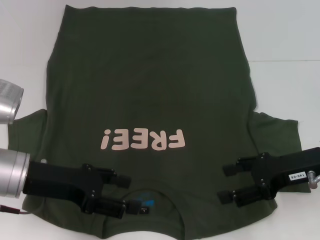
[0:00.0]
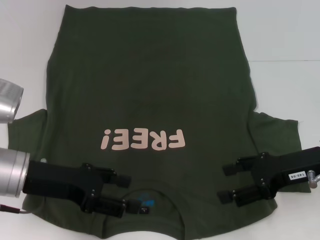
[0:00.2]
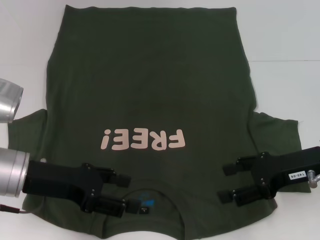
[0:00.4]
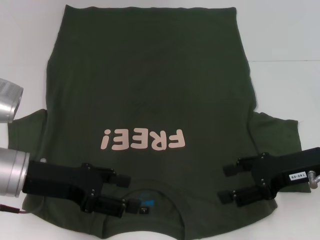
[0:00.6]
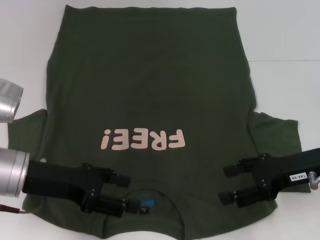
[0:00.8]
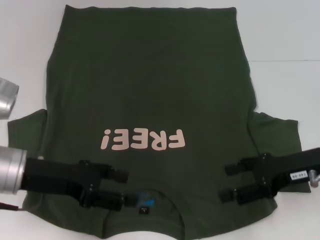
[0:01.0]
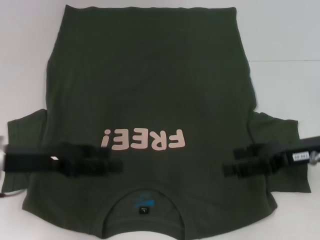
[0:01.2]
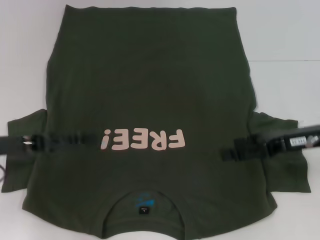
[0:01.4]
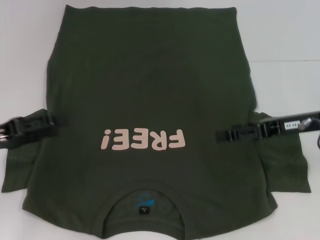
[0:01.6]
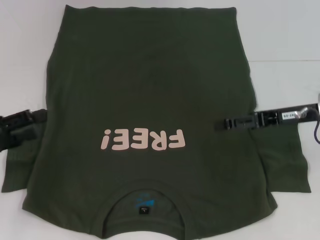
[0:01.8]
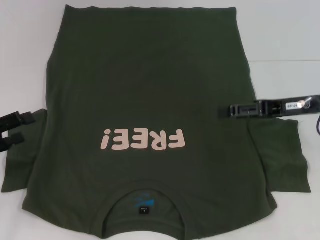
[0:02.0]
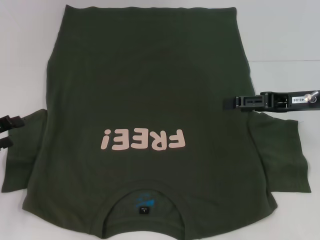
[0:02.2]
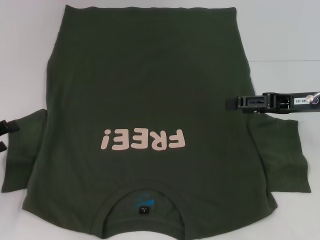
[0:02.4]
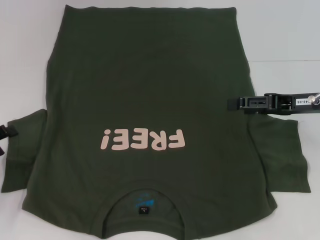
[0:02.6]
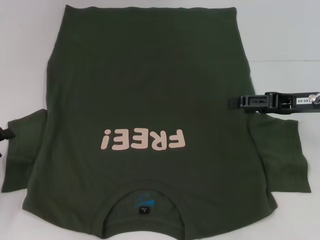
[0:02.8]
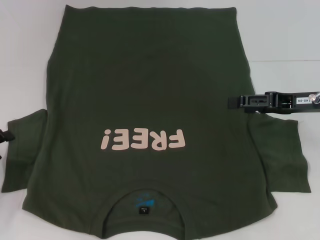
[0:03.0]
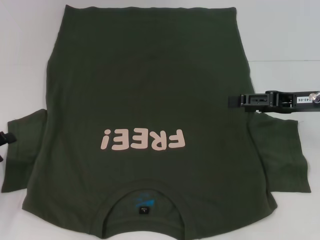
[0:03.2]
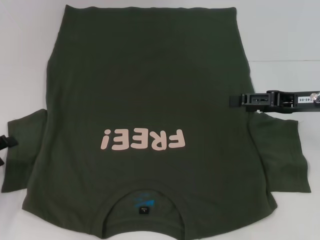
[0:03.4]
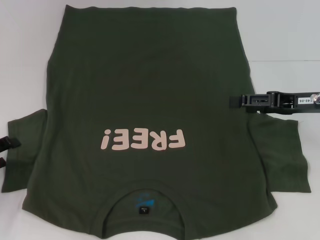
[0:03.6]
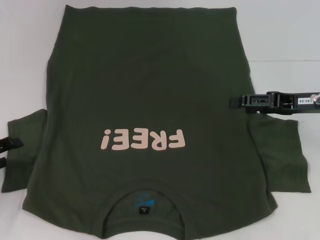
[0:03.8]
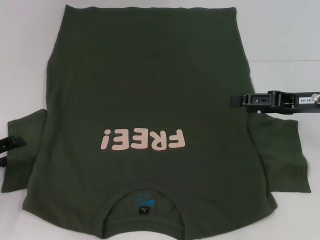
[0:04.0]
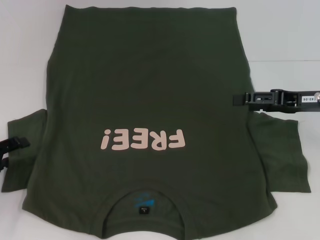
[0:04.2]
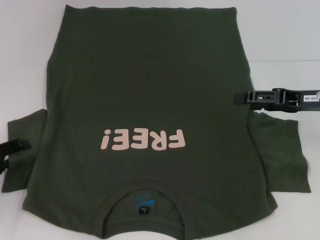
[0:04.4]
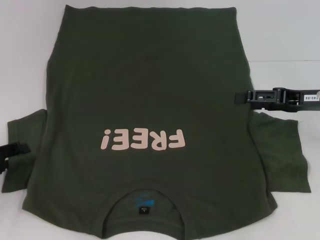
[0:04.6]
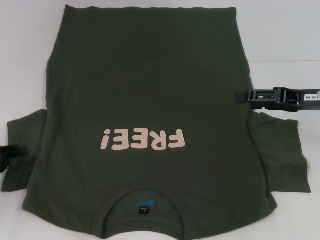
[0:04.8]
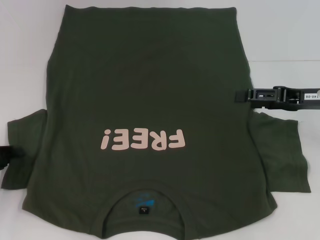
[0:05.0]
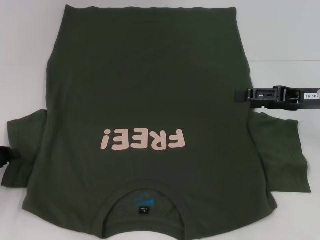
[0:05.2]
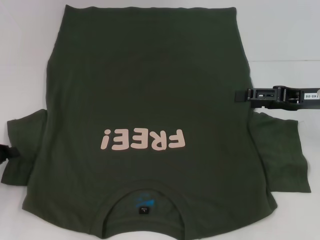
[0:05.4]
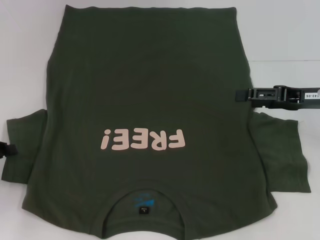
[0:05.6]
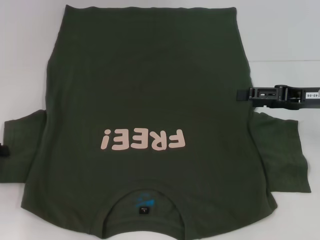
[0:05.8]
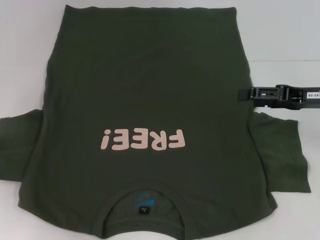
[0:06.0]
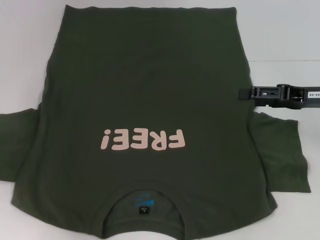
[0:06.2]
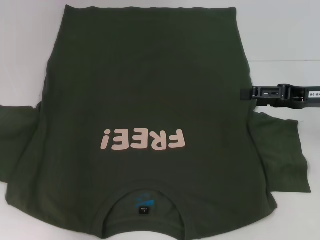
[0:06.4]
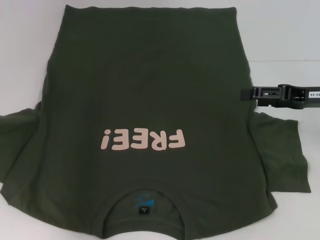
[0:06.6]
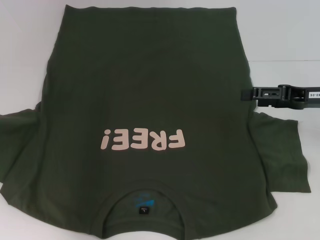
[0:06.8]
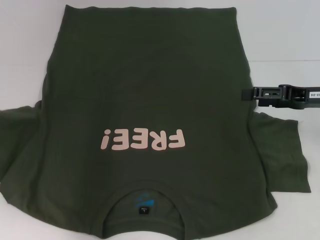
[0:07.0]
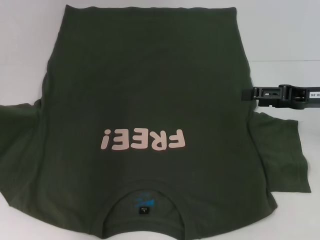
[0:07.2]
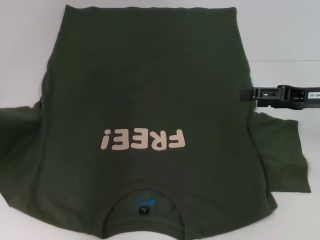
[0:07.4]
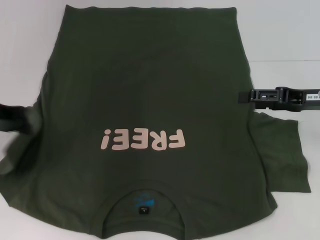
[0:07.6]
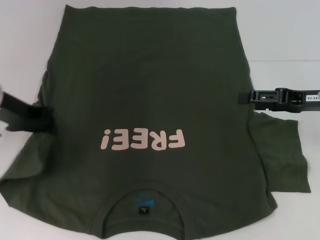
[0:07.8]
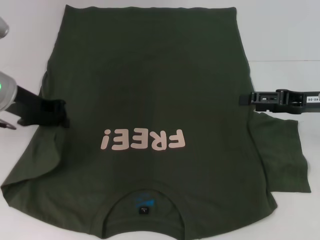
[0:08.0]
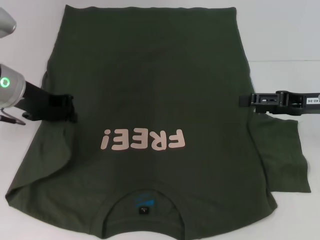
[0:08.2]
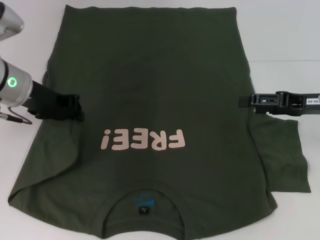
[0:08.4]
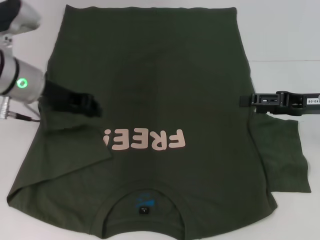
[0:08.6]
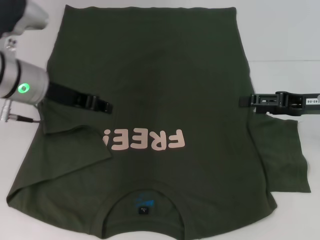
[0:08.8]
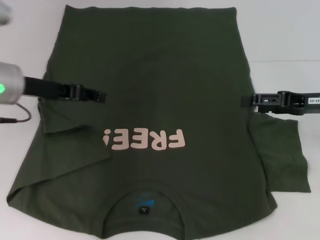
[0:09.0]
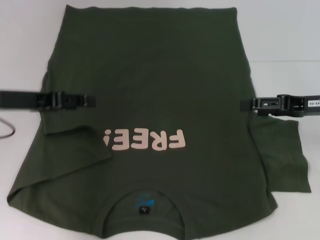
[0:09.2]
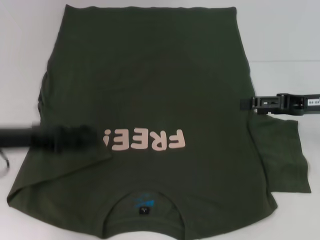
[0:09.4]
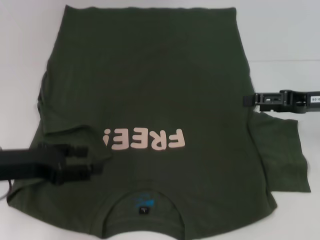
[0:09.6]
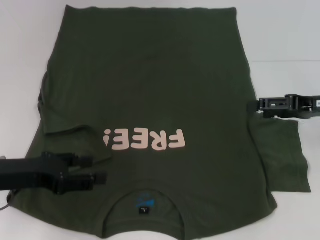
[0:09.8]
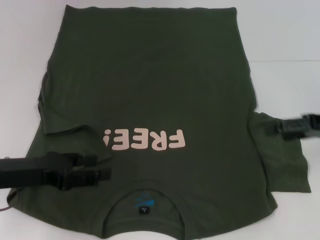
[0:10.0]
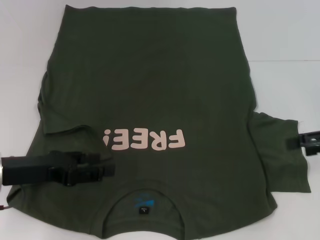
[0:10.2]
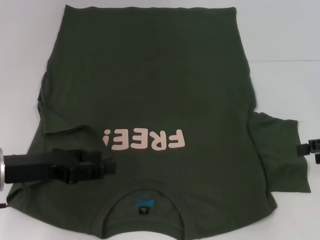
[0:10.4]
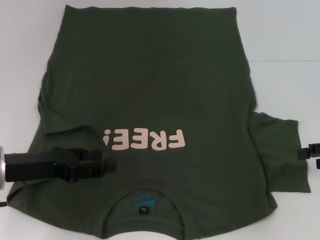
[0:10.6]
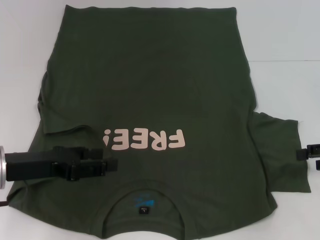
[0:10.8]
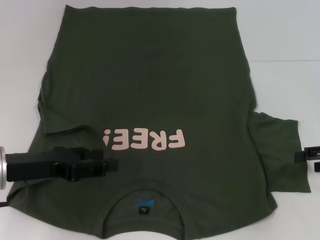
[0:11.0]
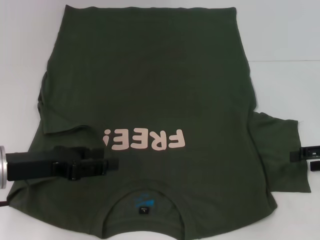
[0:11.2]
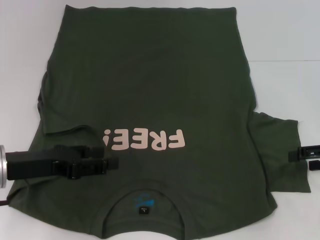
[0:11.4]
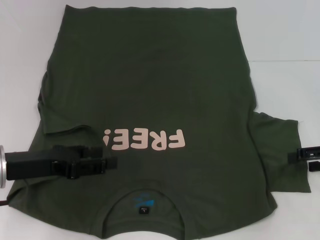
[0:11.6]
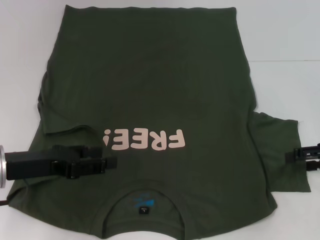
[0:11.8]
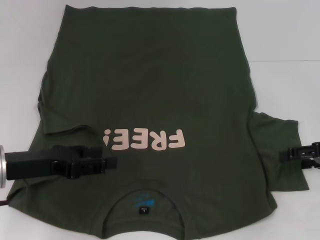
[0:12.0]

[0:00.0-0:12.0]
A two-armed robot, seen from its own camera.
Step, 0:00.0 to 0:08.6: Fold the bottom left sleeve with your left hand.
0:00.0 to 0:01.6: The left gripper shifts approximately 10 cm to the left.
0:01.6 to 0:03.0: The left gripper goes some 10 cm downward and to the left.
0:03.0 to 0:04.4: The grippers stay close to where they were, moving slightly.
0:04.4 to 0:06.0: The left gripper travels upward by approximately 5 cm, and closes.
0:06.0 to 0:07.6: The left gripper is displaced to the right and upward by roughly 10 cm.
0:07.6 to 0:09.0: The left gripper opens.
0:09.0 to 0:10.4: The right gripper moves to the right, some 5 cm; the left gripper moves backward and downward, approximately 10 cm.
0:10.4 to 0:12.0: The grippers move only a little.

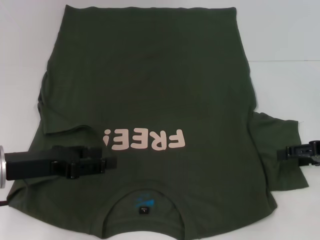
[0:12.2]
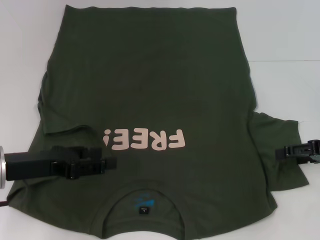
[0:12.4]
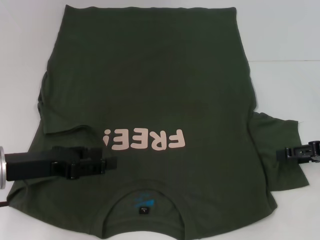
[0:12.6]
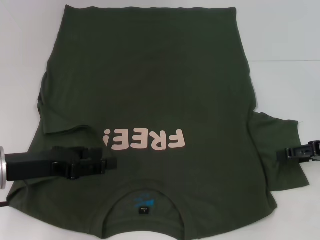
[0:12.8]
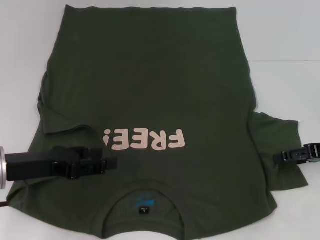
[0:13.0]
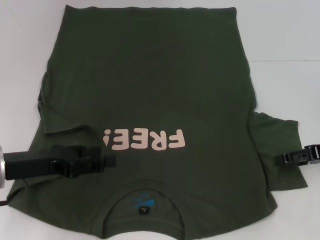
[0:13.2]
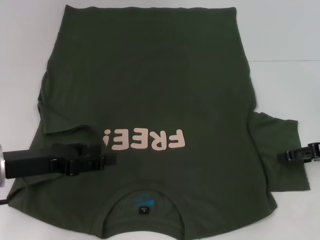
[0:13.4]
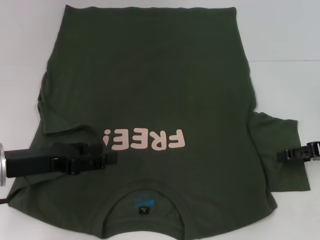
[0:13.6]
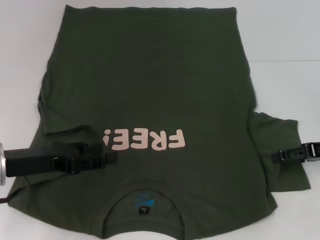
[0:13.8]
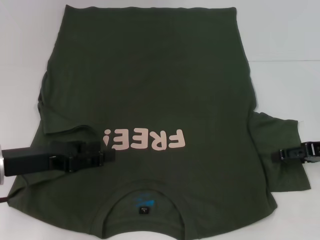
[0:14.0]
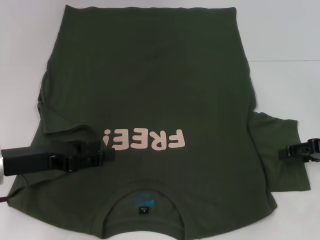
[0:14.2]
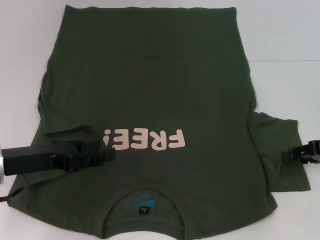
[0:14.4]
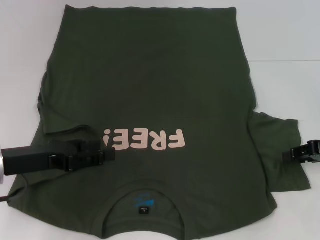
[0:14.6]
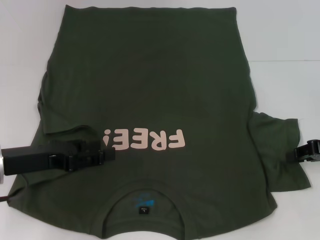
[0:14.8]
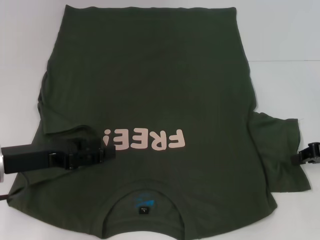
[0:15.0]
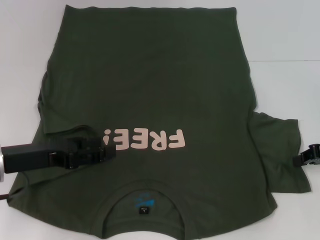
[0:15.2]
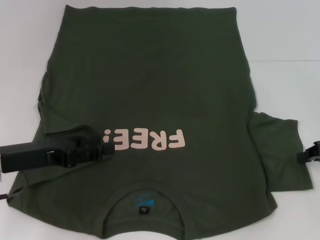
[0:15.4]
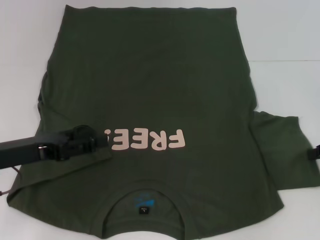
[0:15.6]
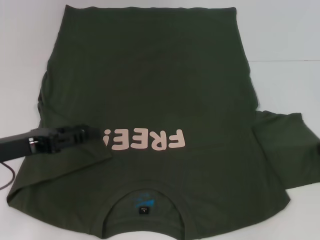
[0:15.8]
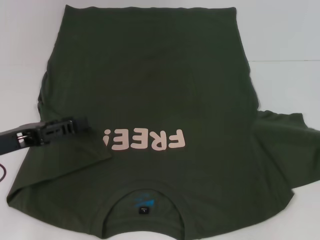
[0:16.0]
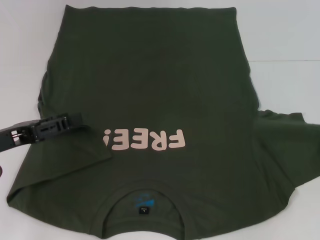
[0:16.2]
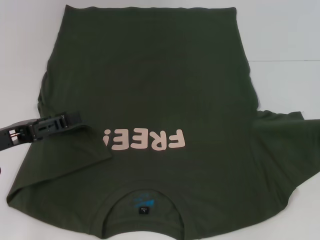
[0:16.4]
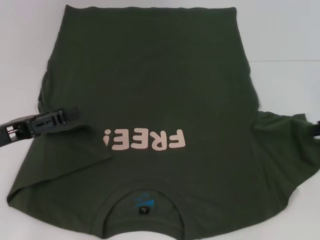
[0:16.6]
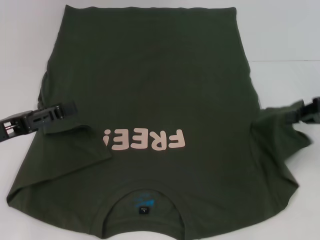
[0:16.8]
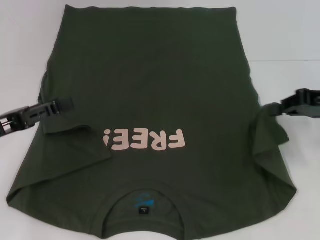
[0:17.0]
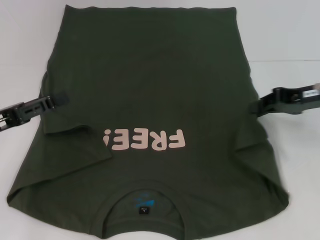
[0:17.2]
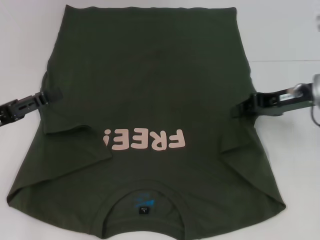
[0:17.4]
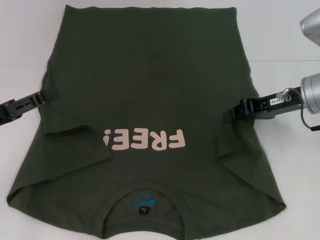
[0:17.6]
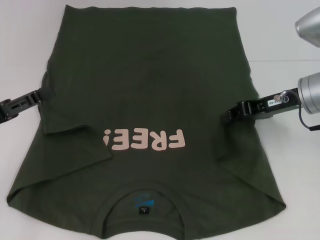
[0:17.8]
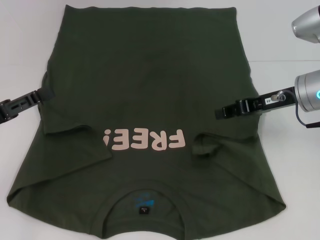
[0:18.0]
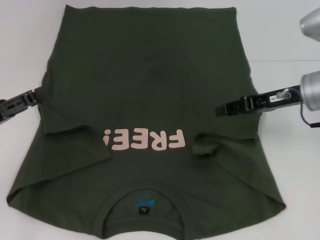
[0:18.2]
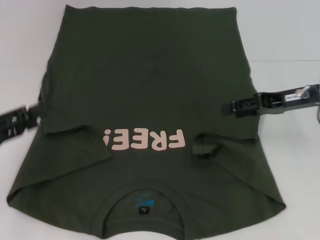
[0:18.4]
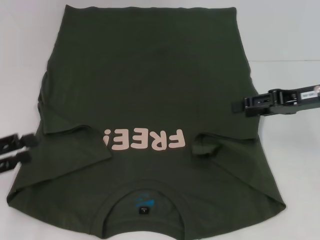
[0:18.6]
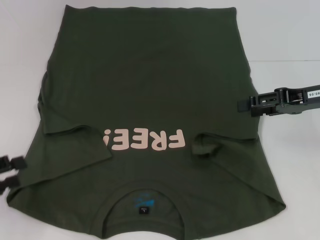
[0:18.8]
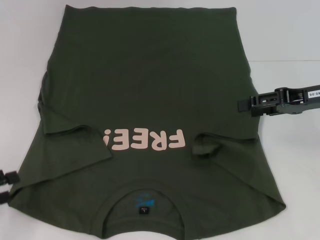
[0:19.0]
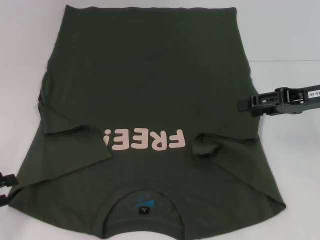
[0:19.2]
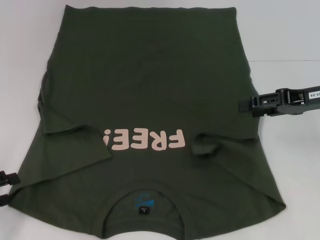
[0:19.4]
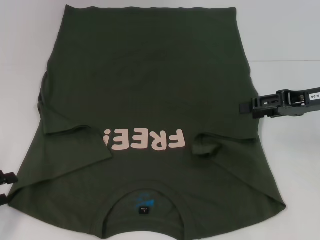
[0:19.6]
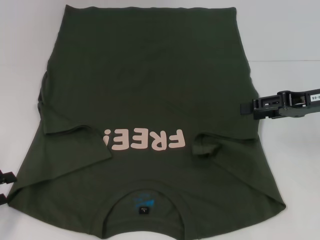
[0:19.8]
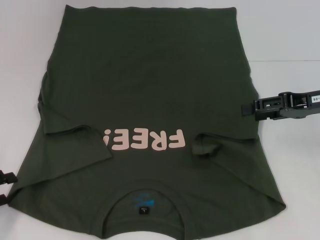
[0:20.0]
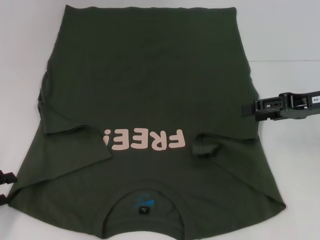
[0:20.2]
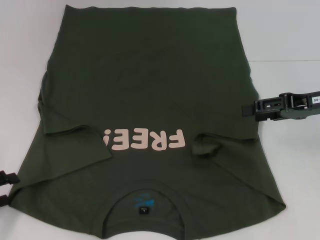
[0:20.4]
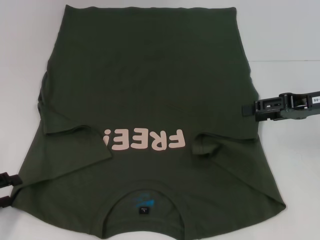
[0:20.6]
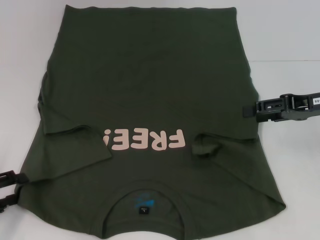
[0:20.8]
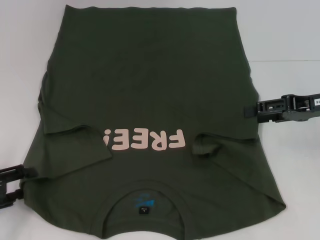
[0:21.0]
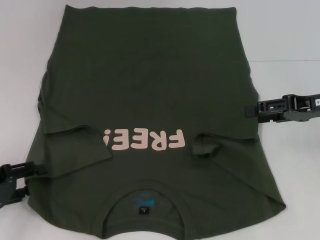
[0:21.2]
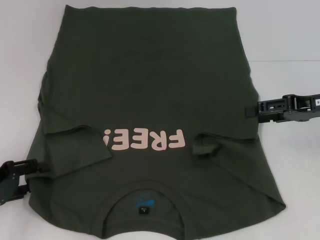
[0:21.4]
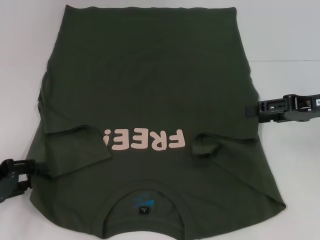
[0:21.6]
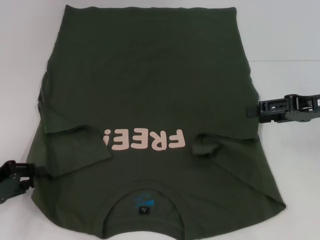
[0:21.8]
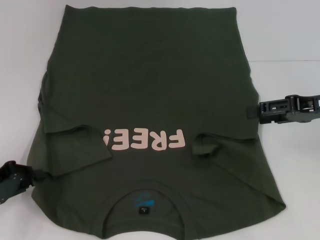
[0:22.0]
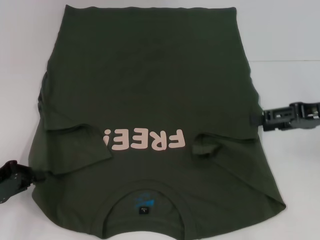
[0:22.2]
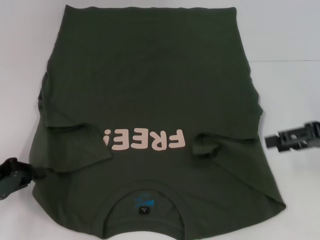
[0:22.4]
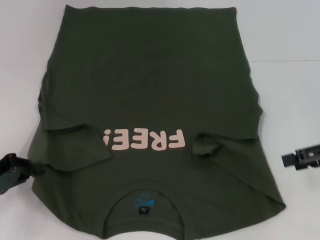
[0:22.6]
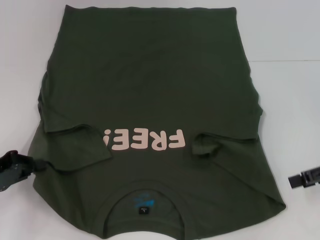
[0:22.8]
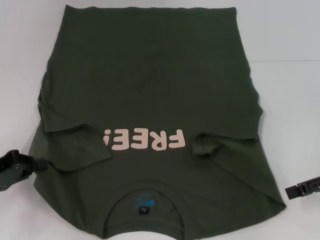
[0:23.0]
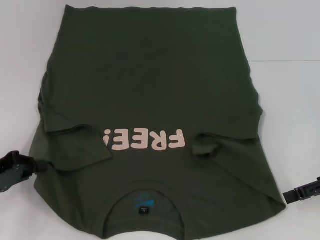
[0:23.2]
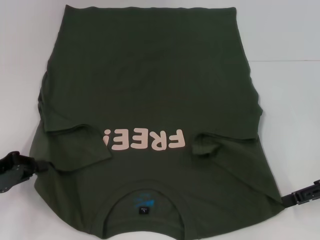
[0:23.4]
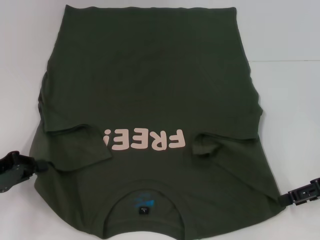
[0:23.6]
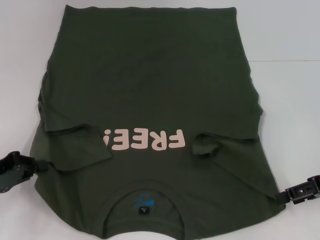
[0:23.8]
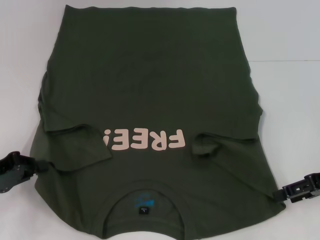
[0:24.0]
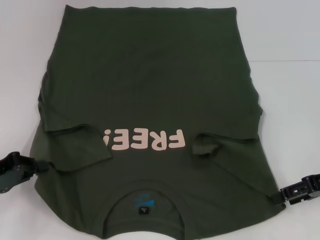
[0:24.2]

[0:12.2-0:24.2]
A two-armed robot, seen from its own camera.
Step, 0:12.2 to 0:18.2: Fold the bottom right sleeve with your right hand.
Step, 0:18.4 to 0:22.2: Grab the bottom left corner with your left hand.
0:12.2 to 0:13.8: The grippers move only a little.
0:13.8 to 0:15.2: The right gripper closes.
0:16.6 to 0:18.2: The right gripper is displaced to the left by roughly 10 cm.
0:18.2 to 0:19.8: The left gripper travels downward, to the left and backward by about 10 cm. Meanwhile the right gripper shifts approximately 5 cm to the right, and opens.
0:19.8 to 0:21.2: There are only small adjustments of the grippers.
0:21.2 to 0:22.6: The right gripper moves some 5 cm, while the left gripper closes its fingers.
0:22.6 to 0:24.2: The grippers stay close to where they were, moving slightly.
